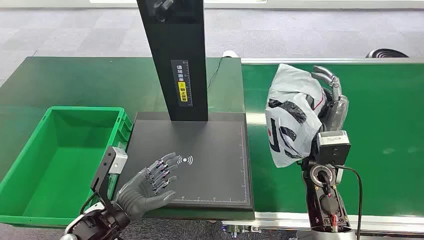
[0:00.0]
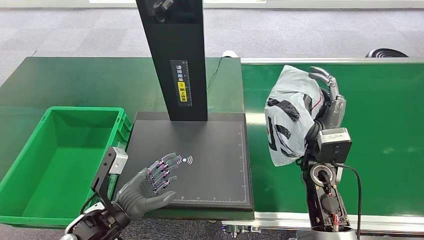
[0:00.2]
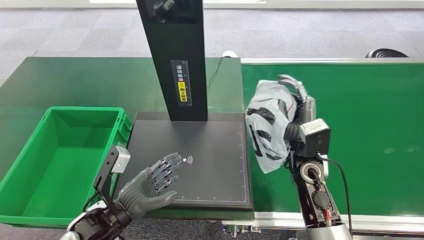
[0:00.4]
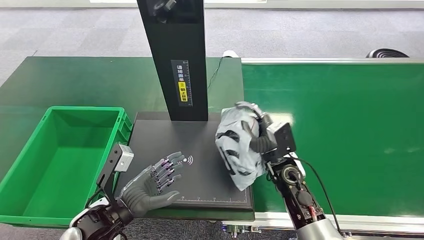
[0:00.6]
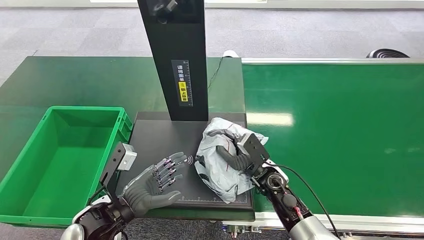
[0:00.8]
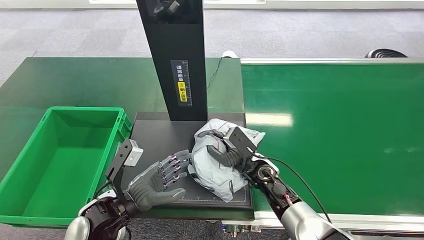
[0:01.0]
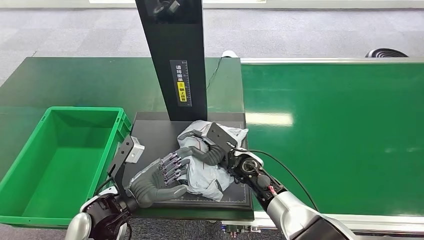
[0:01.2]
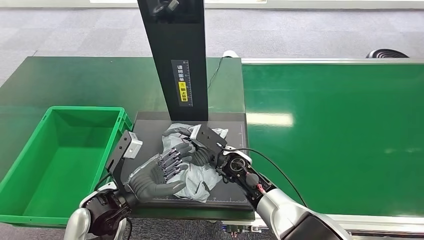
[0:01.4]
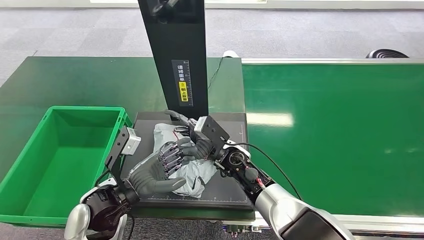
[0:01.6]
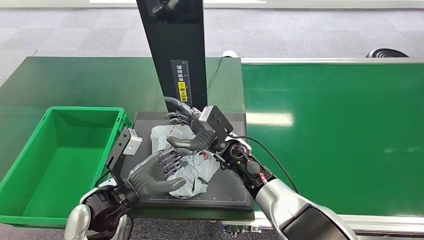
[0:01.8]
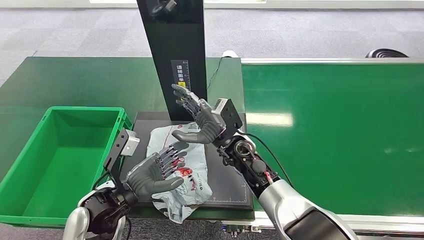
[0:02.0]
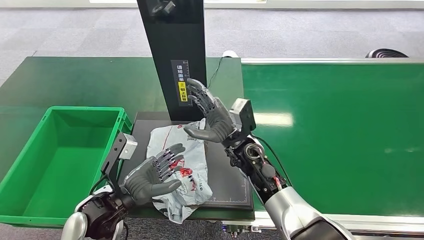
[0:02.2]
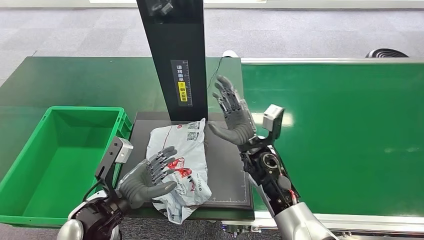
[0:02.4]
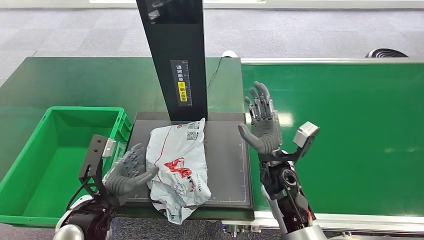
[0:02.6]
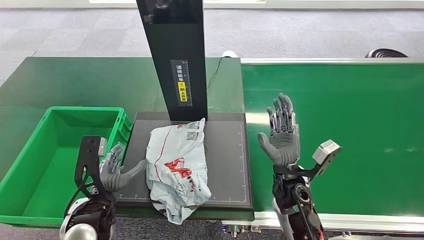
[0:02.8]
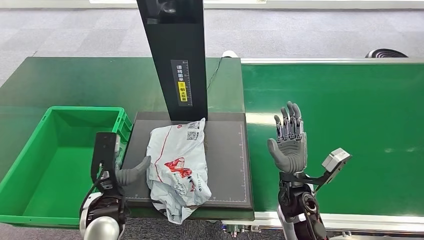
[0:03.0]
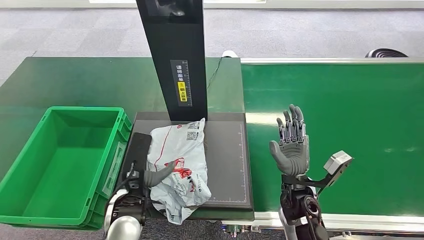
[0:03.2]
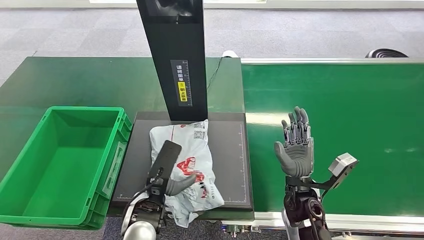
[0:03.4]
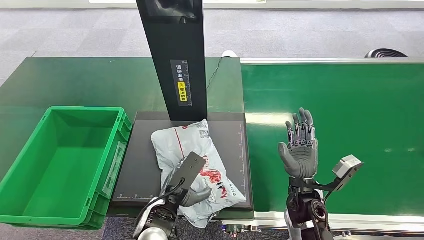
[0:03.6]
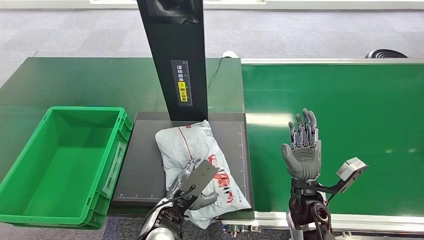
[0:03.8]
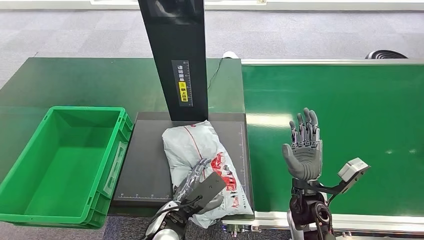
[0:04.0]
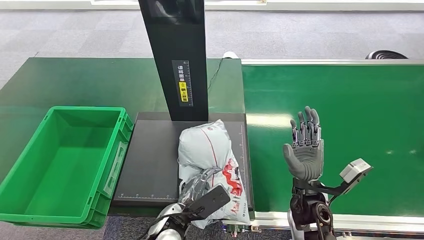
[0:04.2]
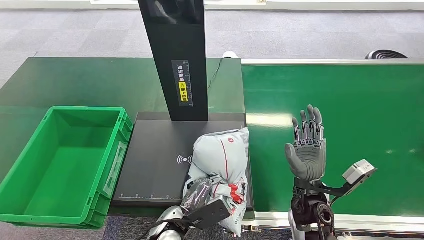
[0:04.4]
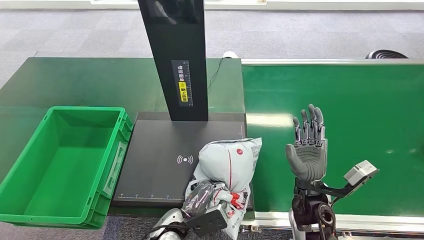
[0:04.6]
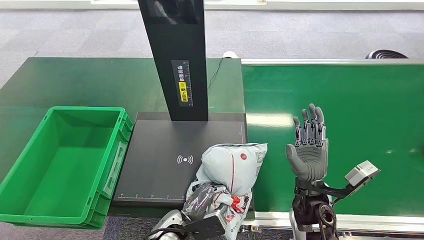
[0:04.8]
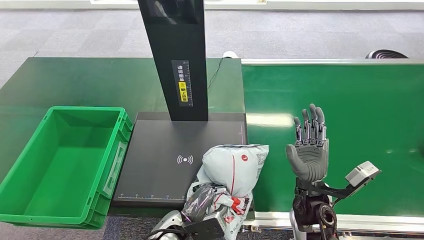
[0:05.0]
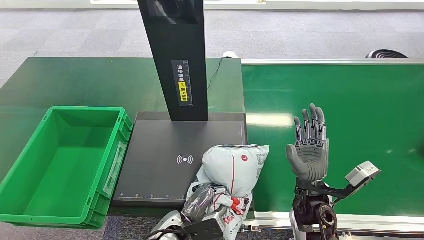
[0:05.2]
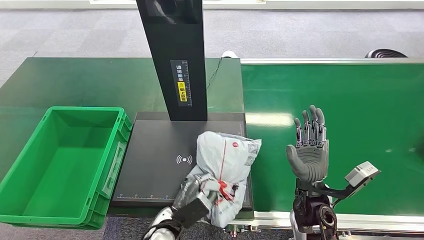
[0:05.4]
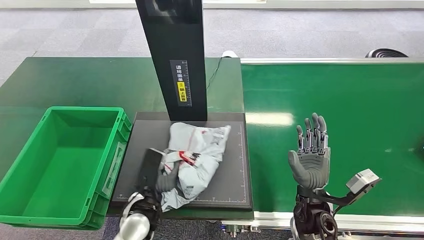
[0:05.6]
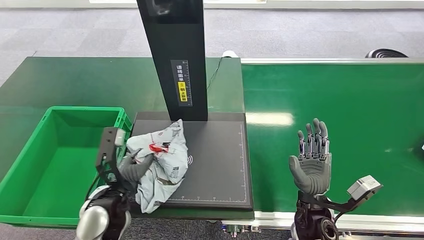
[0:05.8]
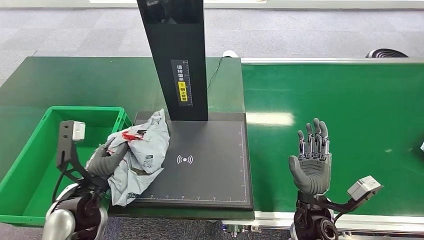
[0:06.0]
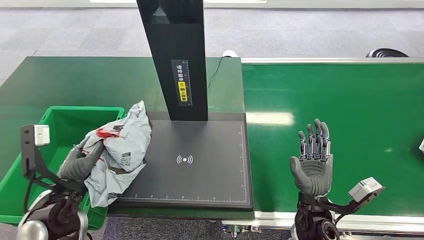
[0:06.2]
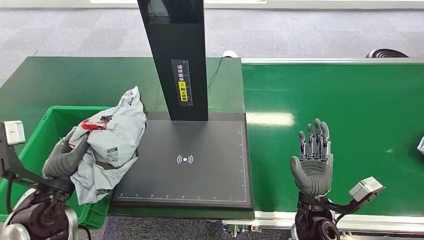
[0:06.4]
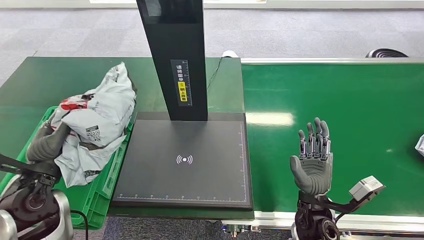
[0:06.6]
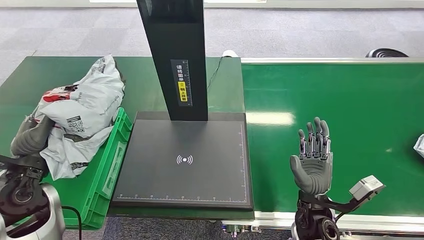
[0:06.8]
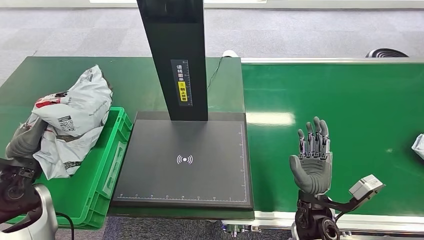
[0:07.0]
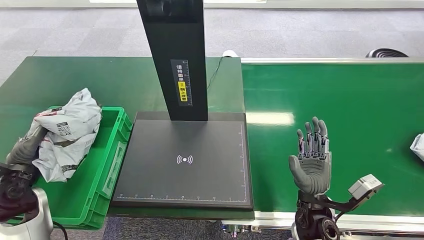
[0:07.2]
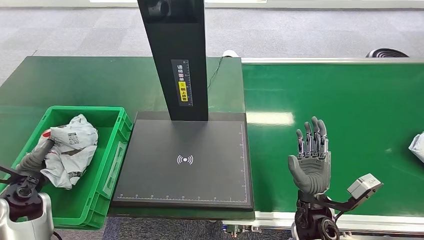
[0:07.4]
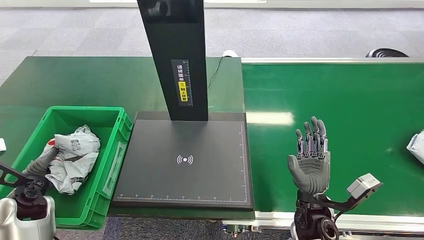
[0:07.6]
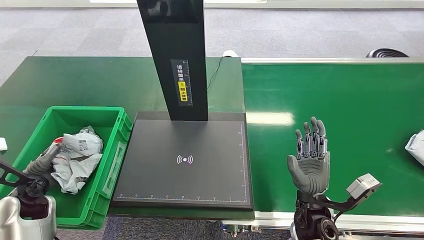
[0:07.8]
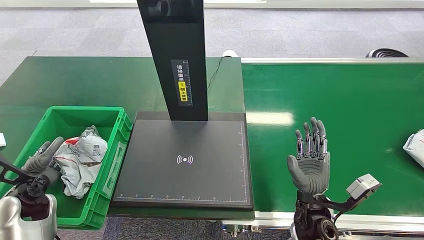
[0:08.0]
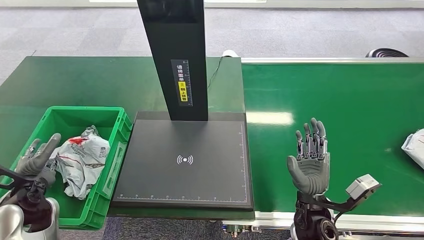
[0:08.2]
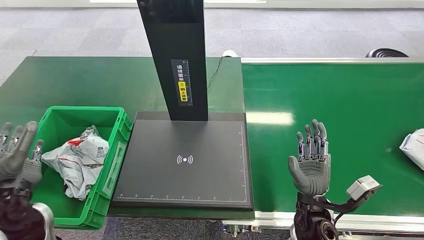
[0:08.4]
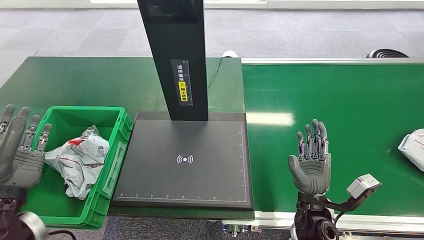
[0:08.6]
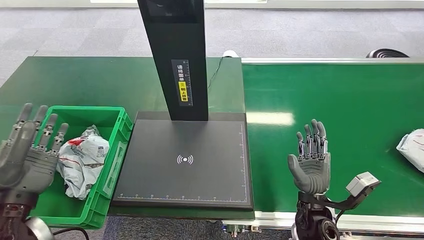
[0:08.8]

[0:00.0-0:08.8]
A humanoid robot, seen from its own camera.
0:01.4 to 0:03.0: The right hand goes about 15 cm to the right and backward.
0:05.8 to 0:07.4: The left hand heads to the left, covering approximately 20 cm.
0:07.4 to 0:08.8: The left hand shifts approximately 20 cm to the right, upward and backward.
